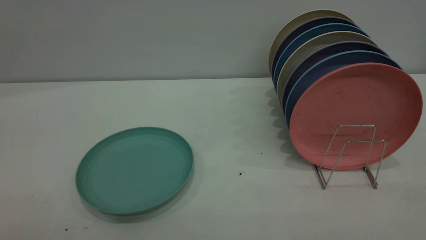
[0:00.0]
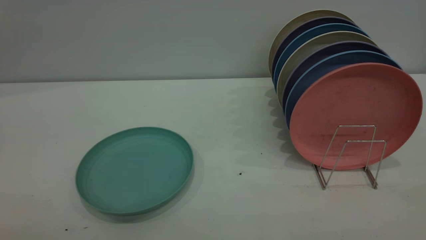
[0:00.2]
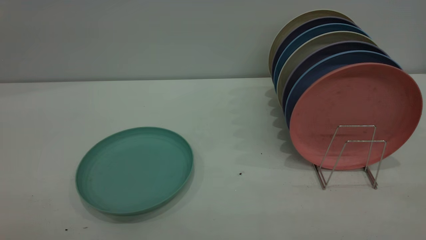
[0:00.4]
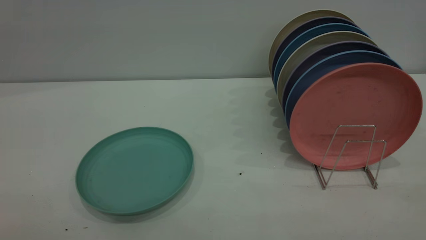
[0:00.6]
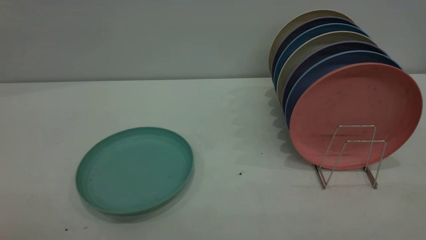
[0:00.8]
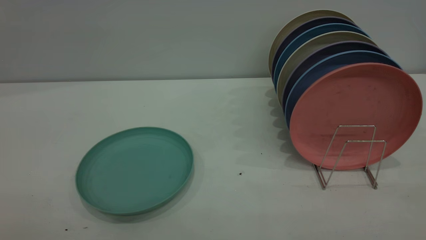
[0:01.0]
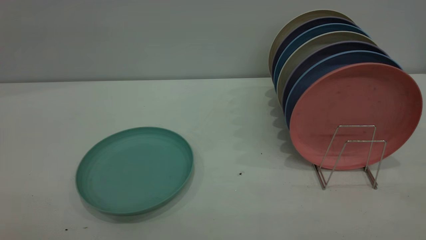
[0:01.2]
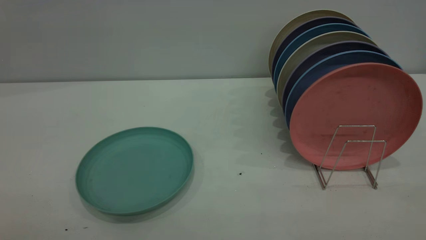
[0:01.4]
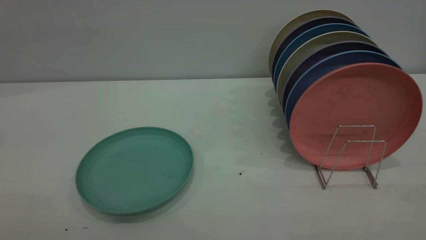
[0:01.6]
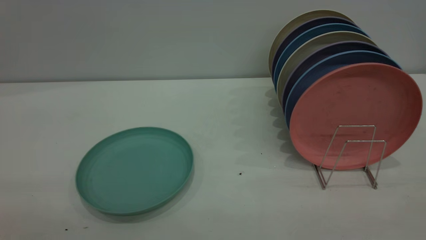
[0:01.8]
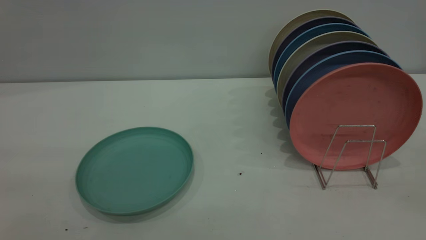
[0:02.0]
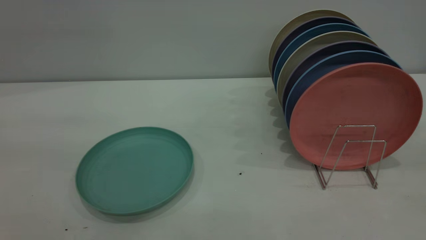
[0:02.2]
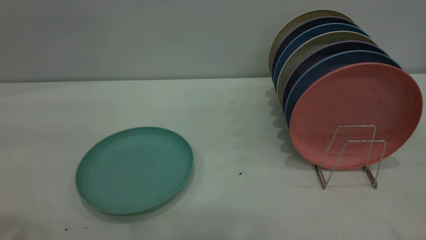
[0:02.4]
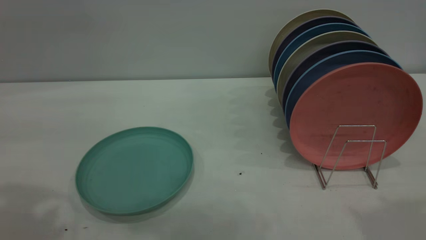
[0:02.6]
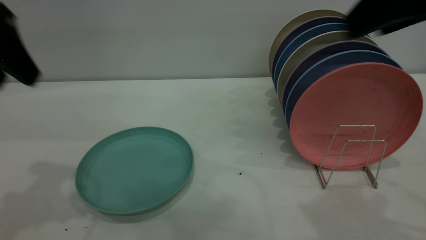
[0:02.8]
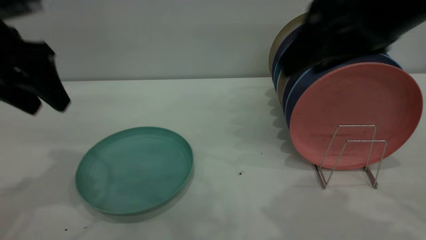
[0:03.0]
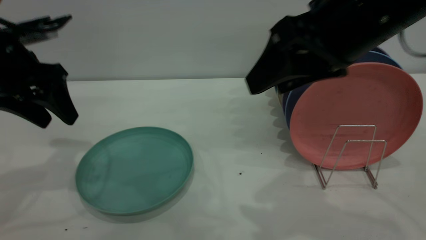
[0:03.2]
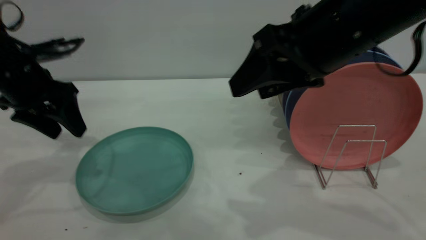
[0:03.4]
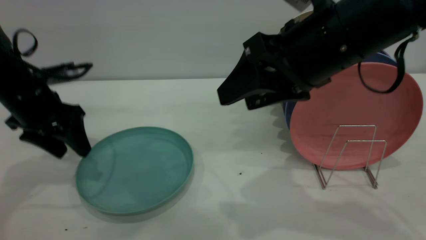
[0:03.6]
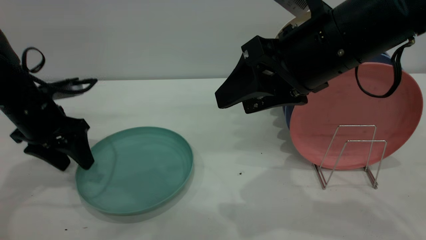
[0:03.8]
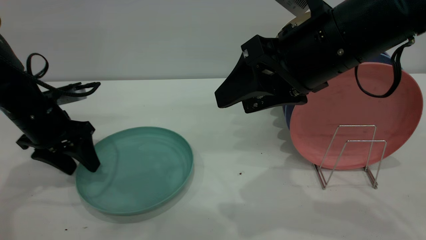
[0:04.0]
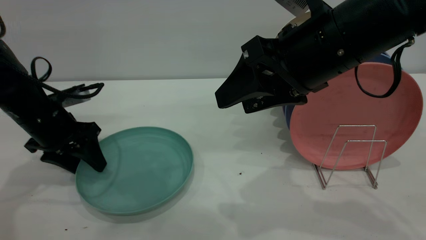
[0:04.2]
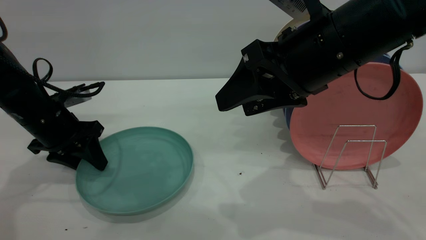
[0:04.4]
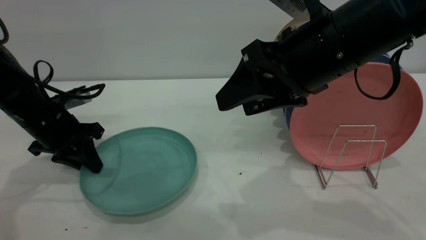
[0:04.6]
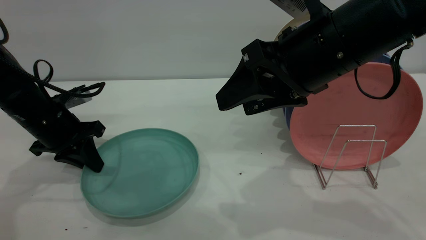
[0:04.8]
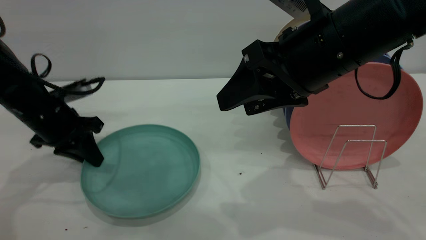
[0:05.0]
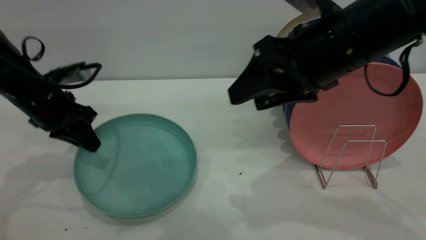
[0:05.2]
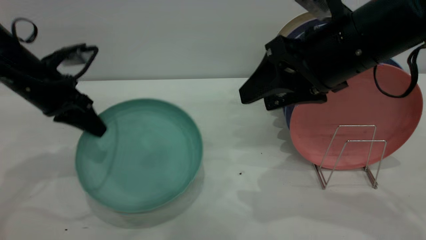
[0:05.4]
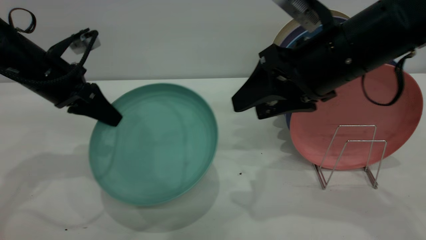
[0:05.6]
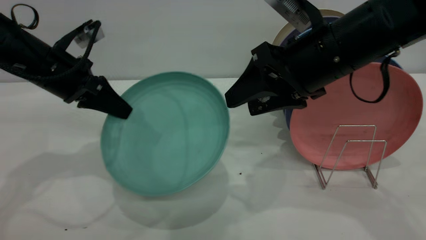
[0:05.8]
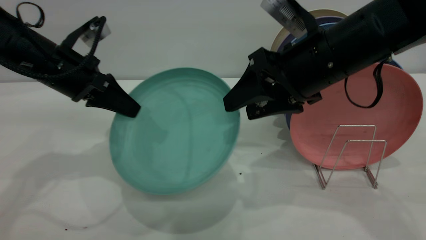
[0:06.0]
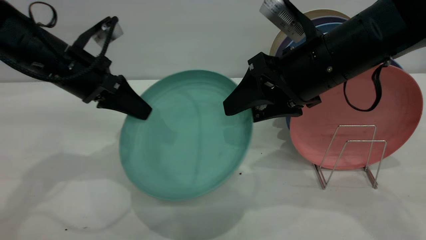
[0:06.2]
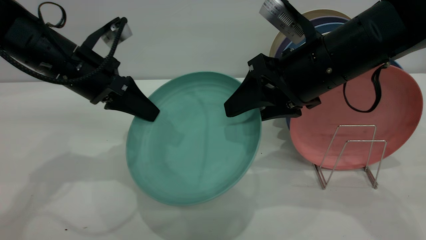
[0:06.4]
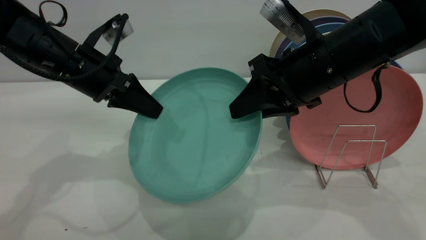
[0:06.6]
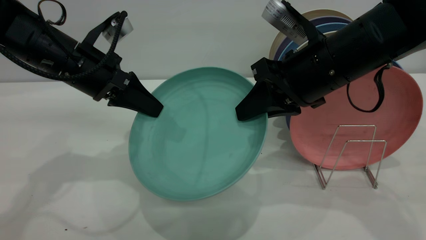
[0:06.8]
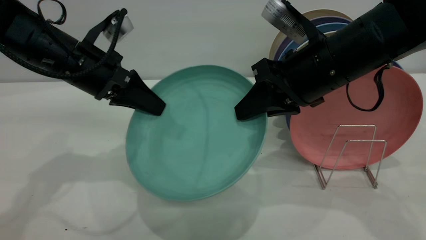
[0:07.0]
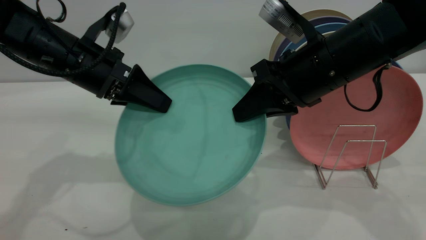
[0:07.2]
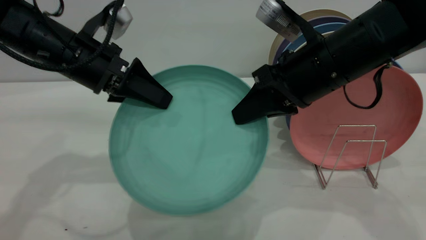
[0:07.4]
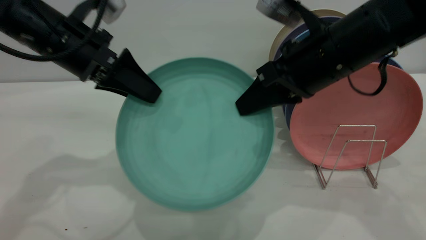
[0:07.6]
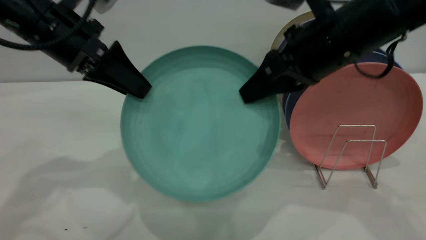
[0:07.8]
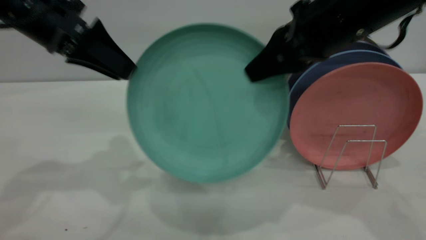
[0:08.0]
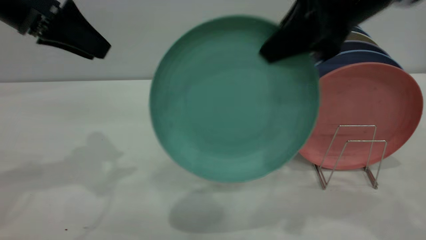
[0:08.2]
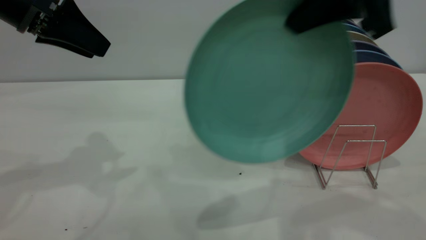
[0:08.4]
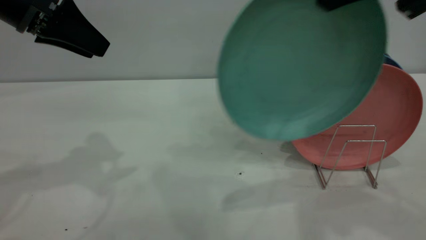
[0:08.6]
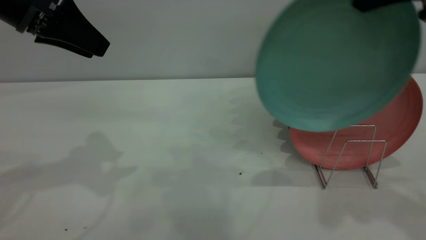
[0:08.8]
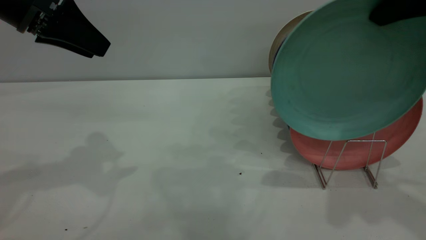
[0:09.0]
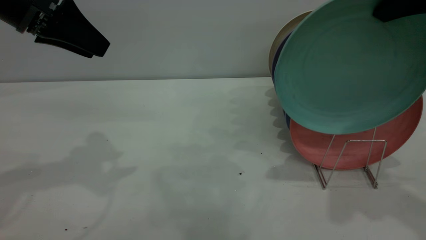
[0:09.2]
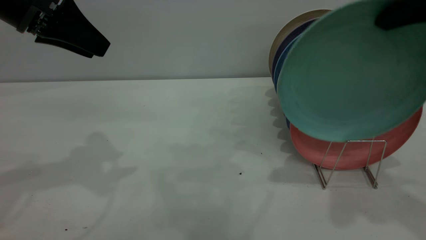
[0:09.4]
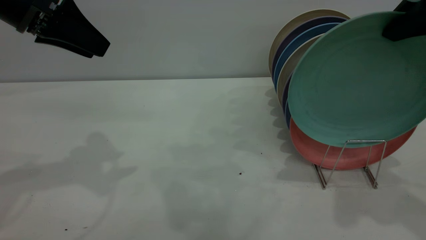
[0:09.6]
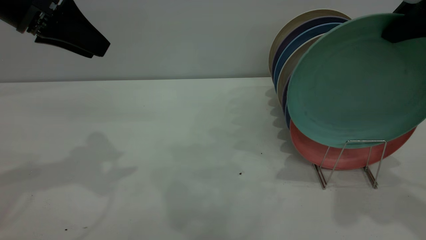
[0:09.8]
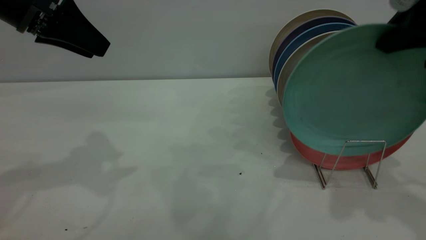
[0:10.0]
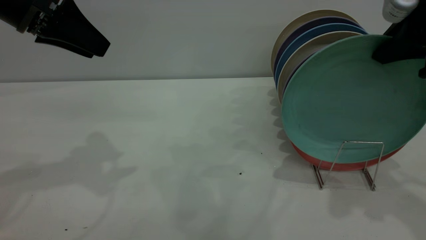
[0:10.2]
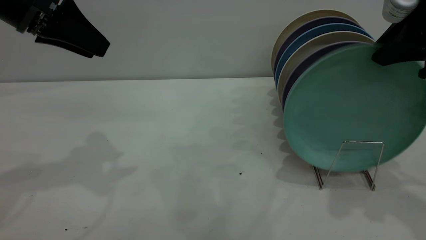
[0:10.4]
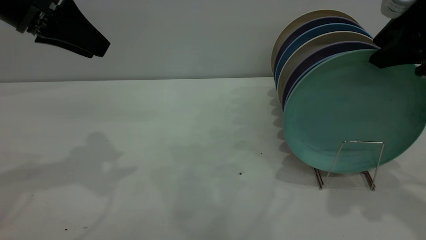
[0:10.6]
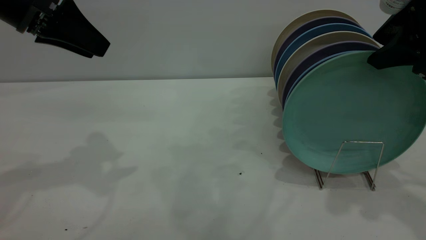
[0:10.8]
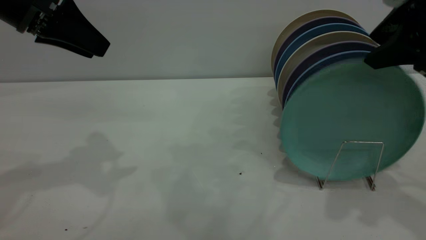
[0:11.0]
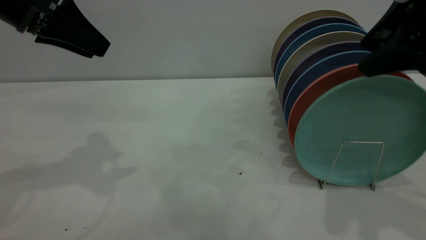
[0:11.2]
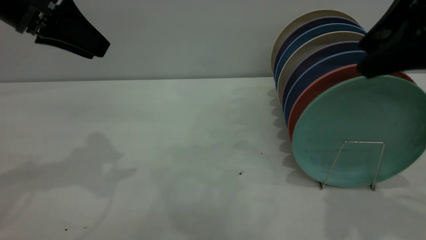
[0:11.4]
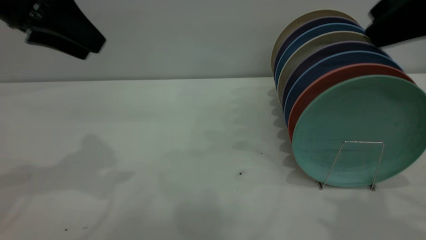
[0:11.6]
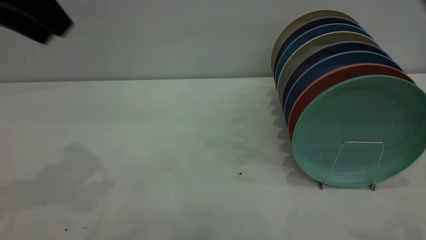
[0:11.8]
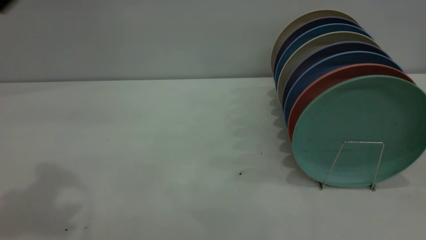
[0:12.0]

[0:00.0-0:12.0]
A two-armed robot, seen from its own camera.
Task of the whole recording: the left gripper grasp the green plate, the left gripper pass the green plate to the right gripper, and the right gripper place the green plate on the plate rack.
Step, 0:00.0 to 0:05.2: Pick up the plate with the left gripper.
Step, 0:05.4 to 0:08.0: Pass the plate from the left gripper to the right gripper.
Step, 0:08.2 to 0:11.6: Place the plate on the shelf.
0:00.0 to 0:01.6: Both grippers stay about where they are.
0:01.6 to 0:03.0: The left gripper travels forward by approximately 35 cm. The right gripper moves forward and to the left, some 30 cm.
0:03.0 to 0:04.4: The left gripper heads downward, covering approximately 15 cm. The right gripper travels downward by some 5 cm.
0:04.4 to 0:06.0: The right gripper ends up approximately 5 cm from where it was. Meanwhile the left gripper travels upward by some 10 cm, and closes up.
0:06.0 to 0:07.6: The left gripper ends up about 5 cm from where it was, and opens its fingers; the right gripper closes its fingers.
0:07.6 to 0:09.0: The right gripper shifts approximately 15 cm upward and to the right; the left gripper travels upward and to the left by some 10 cm.
0:09.0 to 0:10.4: There are only small adjustments of the grippers.
0:10.4 to 0:12.0: The right gripper shifts about 20 cm backward and upward, and opens. The left gripper travels upward and backward by some 15 cm.

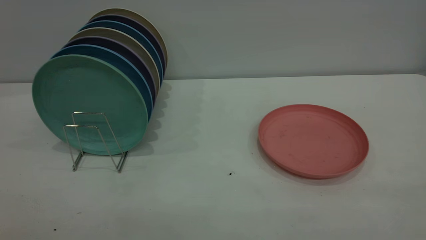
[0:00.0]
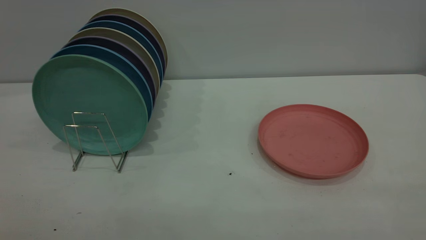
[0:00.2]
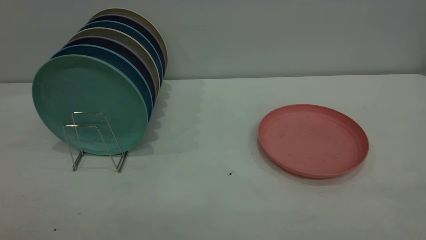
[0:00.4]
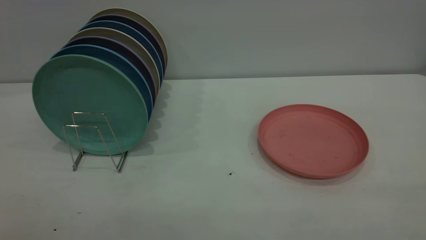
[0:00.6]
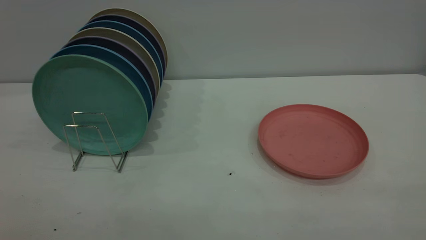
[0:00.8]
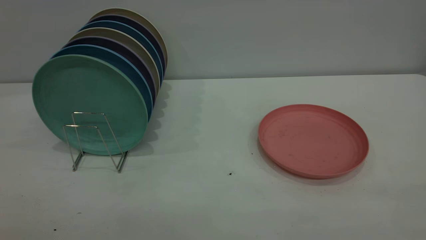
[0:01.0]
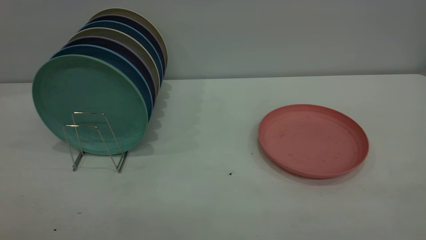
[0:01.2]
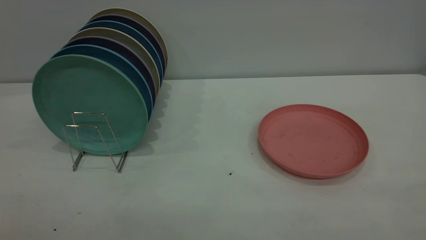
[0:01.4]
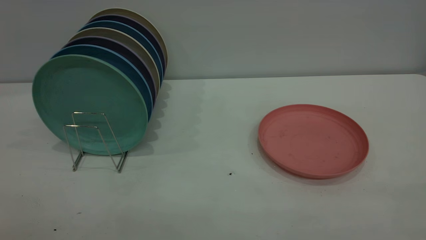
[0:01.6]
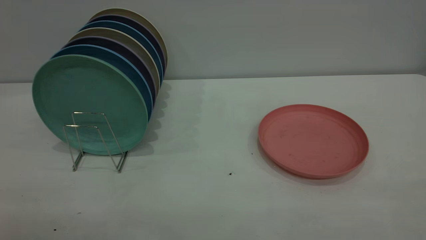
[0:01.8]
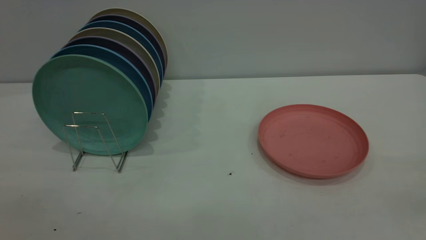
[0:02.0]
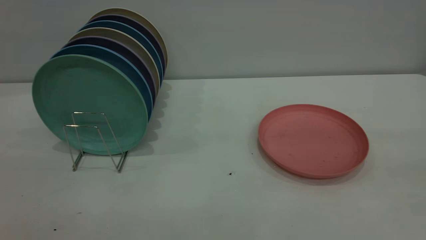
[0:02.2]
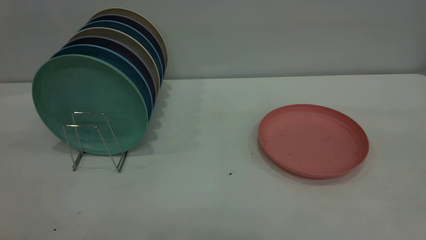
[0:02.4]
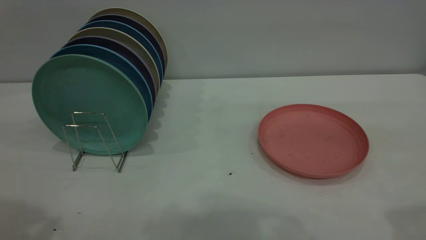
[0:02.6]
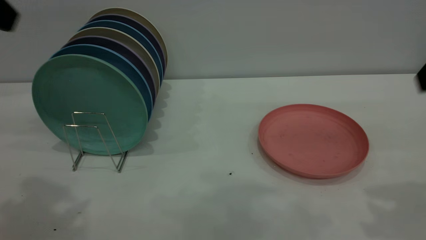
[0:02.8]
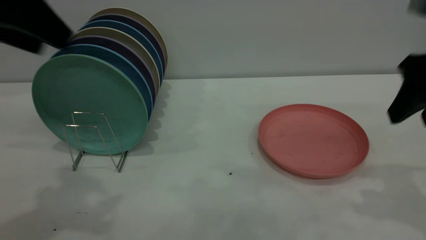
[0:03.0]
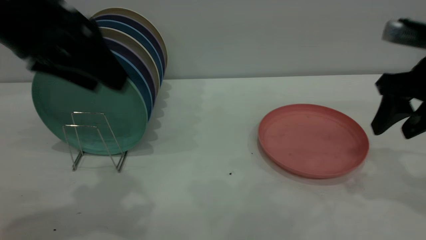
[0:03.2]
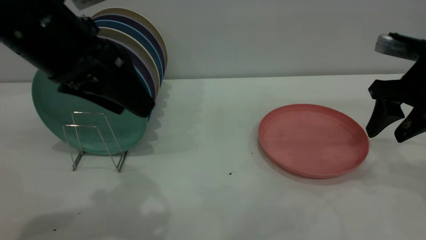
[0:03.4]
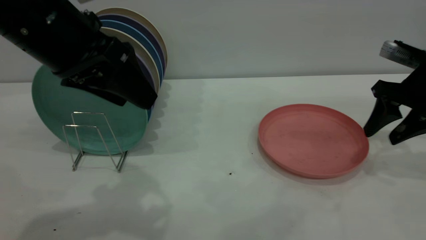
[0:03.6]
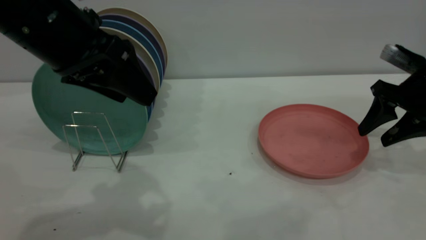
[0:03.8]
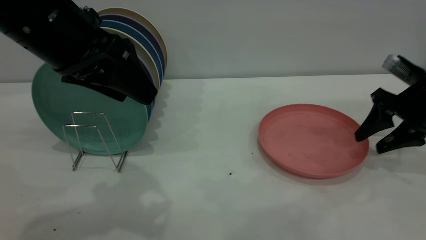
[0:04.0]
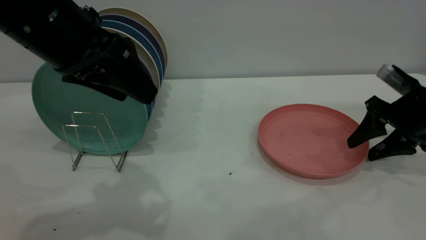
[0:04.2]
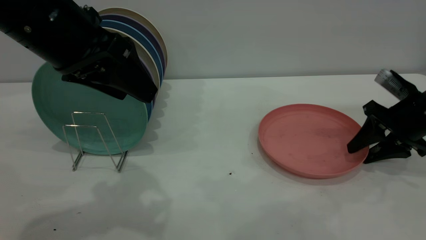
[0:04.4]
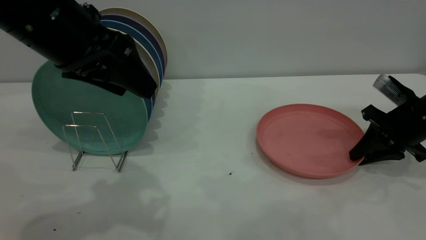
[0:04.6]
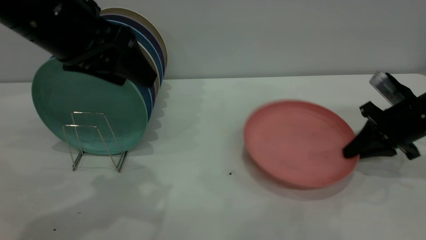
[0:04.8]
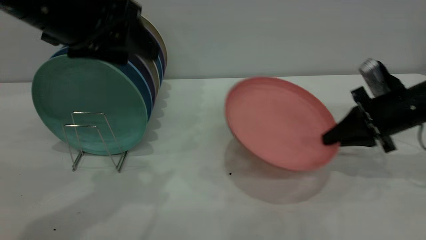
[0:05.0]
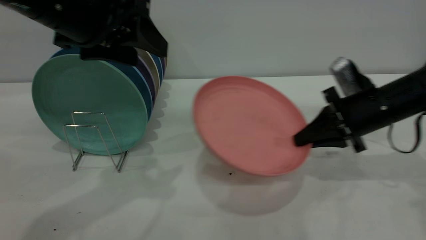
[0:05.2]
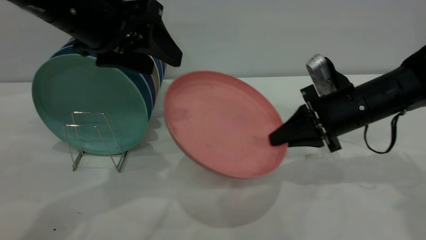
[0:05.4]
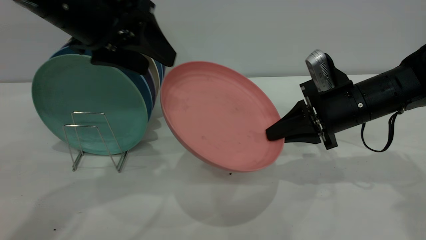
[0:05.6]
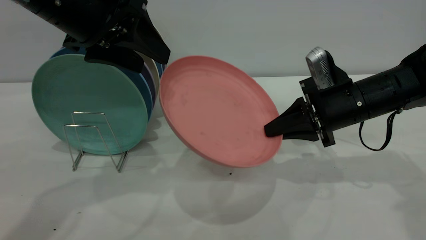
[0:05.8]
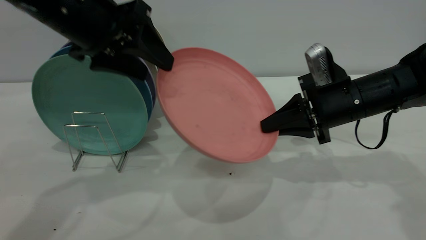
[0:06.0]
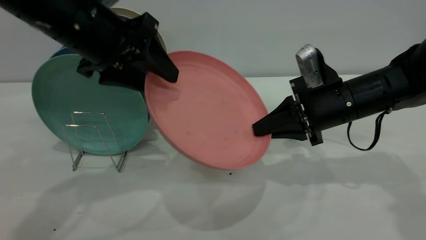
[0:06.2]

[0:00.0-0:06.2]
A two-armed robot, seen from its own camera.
Task of the whole recording: the right gripper grasp the pink plate, the right gripper pass the pink plate to the left gripper, and the left gripper place the pink plate on the plate rack.
Step, 0:00.0 to 0:04.8: Pick up the plate with the right gripper.
0:00.0 to 0:01.6: The two grippers keep their place.
0:01.6 to 0:03.2: The two grippers go roughly 30 cm forward.
0:03.2 to 0:04.6: The right gripper moves downward and forward, approximately 15 cm, and closes.
0:04.6 to 0:06.2: The left gripper goes some 5 cm forward. Meanwhile the right gripper is displaced to the left by approximately 15 cm.
